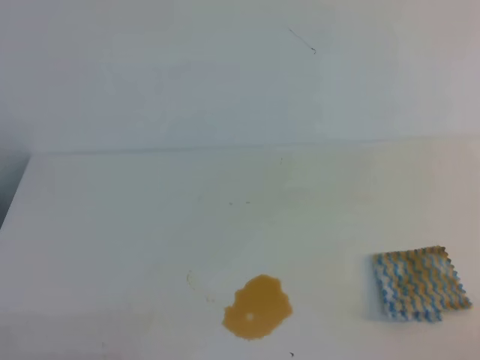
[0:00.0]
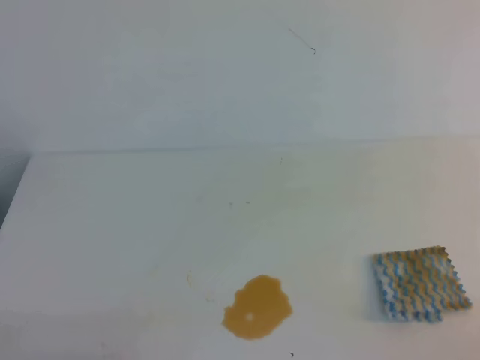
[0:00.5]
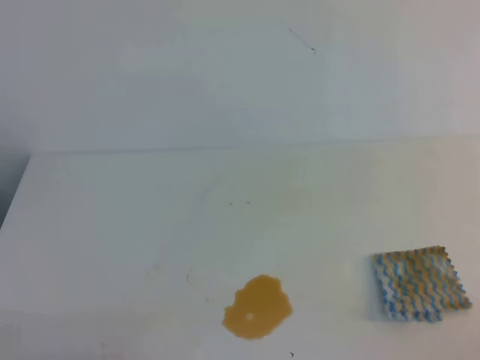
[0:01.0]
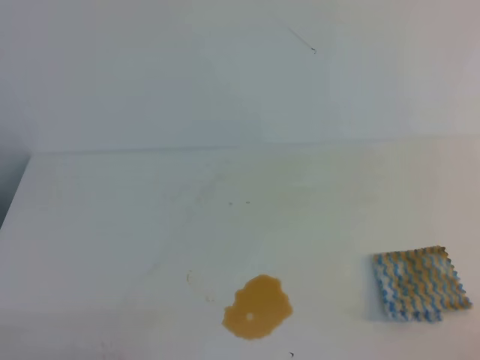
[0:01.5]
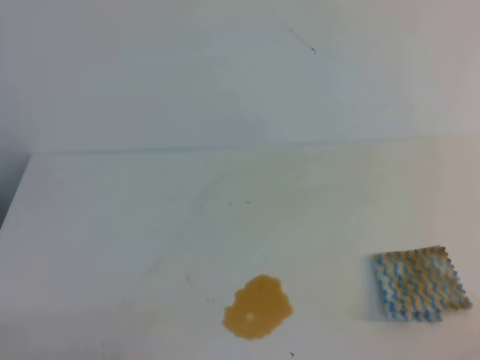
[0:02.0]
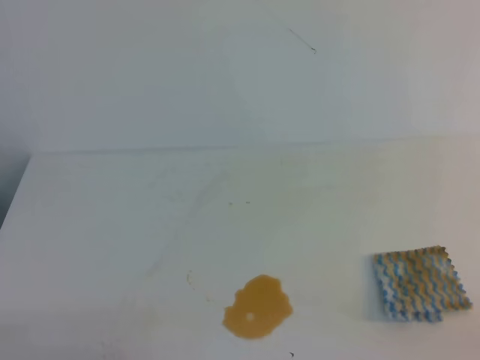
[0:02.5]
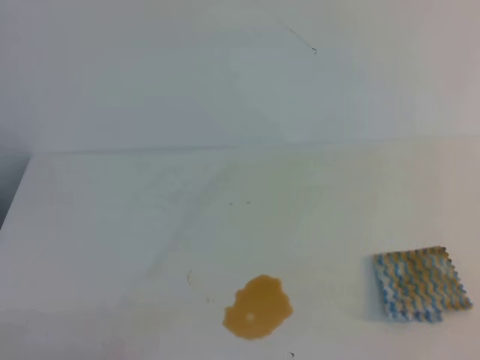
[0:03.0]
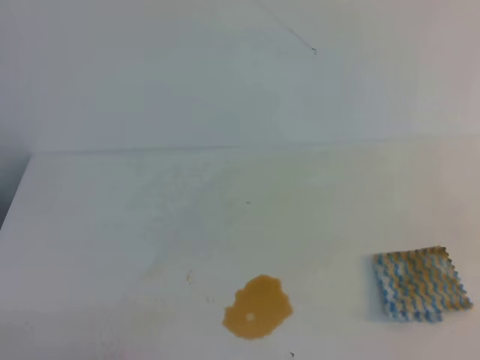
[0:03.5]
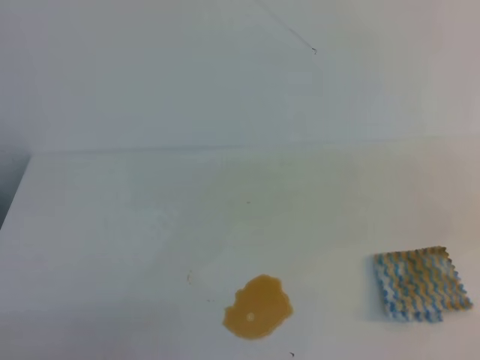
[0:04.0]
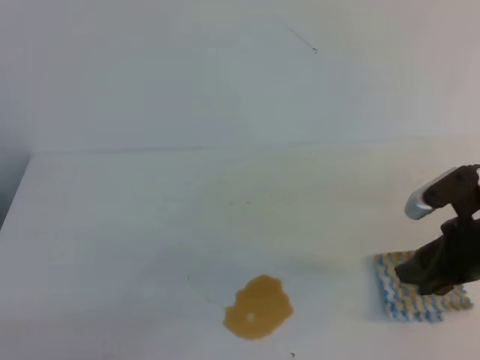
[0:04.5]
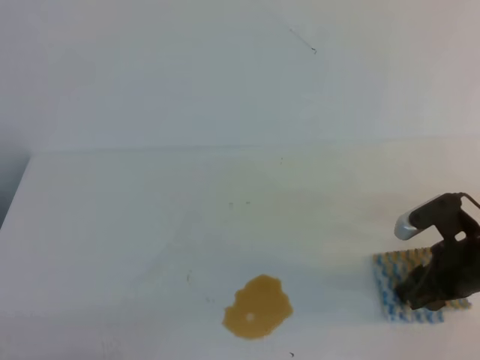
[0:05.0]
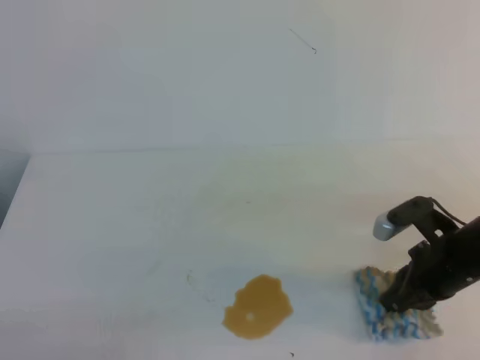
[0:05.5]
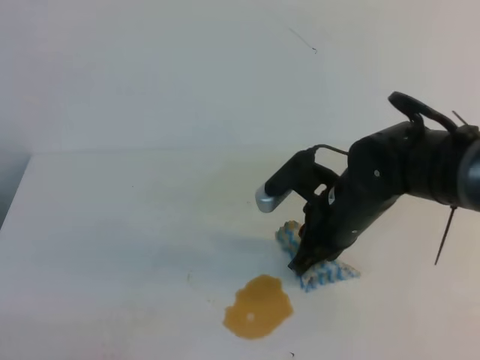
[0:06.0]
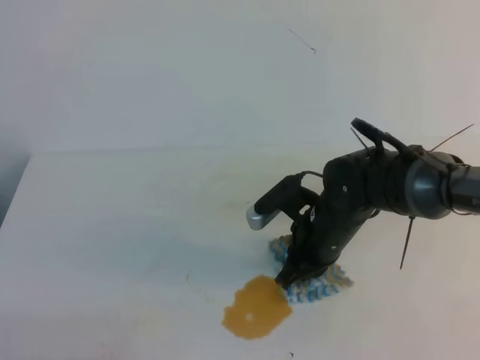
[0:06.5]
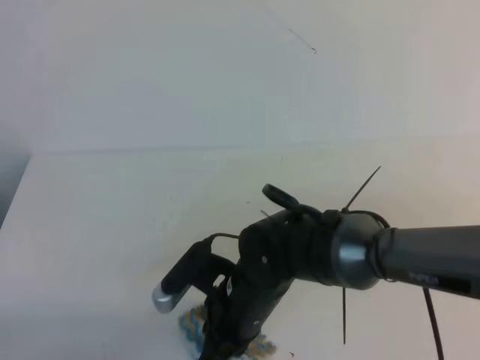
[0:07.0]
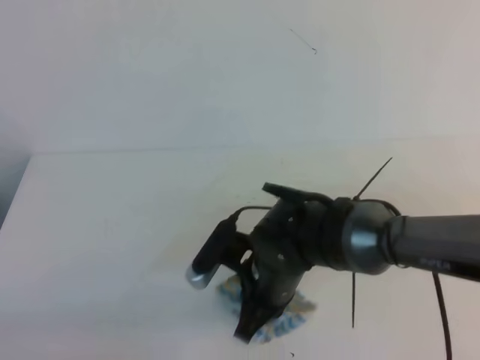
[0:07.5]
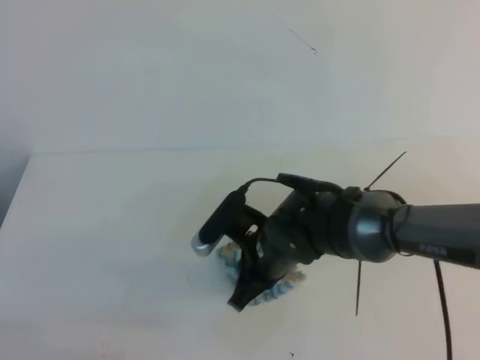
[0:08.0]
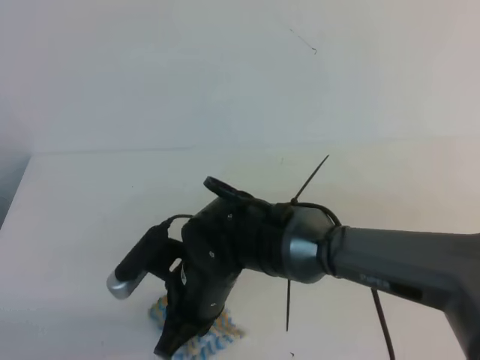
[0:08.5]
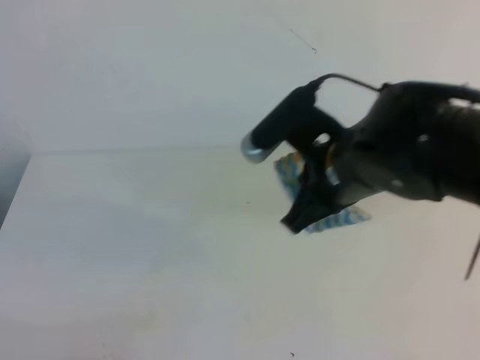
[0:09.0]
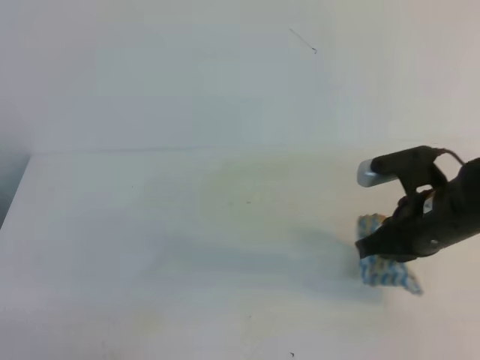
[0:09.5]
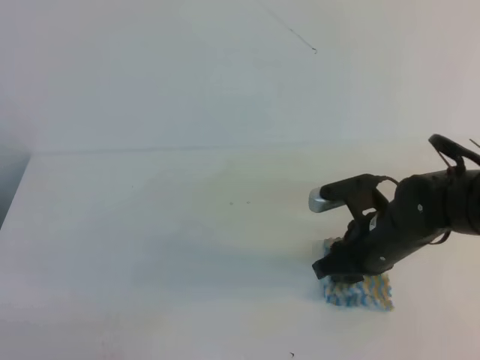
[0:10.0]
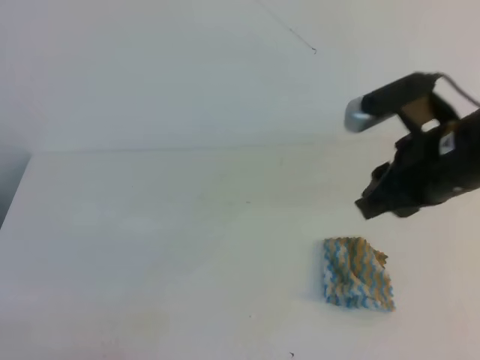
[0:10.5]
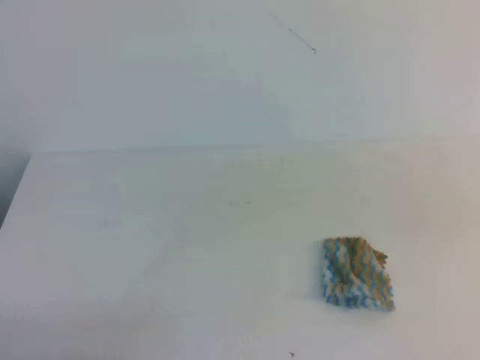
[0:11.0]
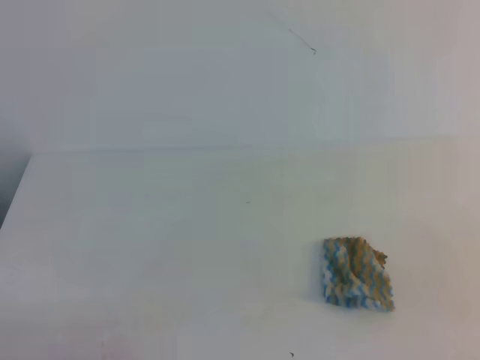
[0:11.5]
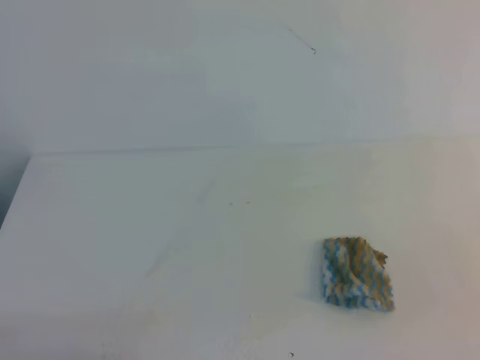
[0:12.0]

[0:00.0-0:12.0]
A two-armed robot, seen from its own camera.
0:00.0 to 0:02.0: The two grippers keep their place.
0:04.0 to 0:06.0: The right gripper shifts about 25 cm to the left, forward and downward, and opens, then closes again.
0:06.0 to 0:08.0: The right gripper travels to the left and downward by some 10 cm.
0:08.0 to 0:10.0: The right gripper goes left and right, some 25 cm each way, reversing 2 times, and opens up.
0:10.0 to 0:12.0: The right gripper moves backward, to the right and upward, approximately 30 cm, and closes its fingers.

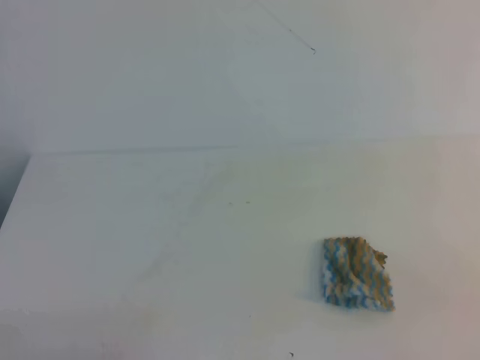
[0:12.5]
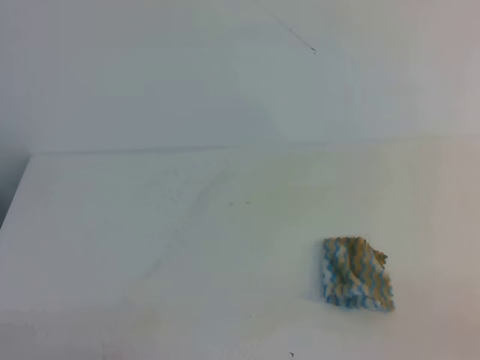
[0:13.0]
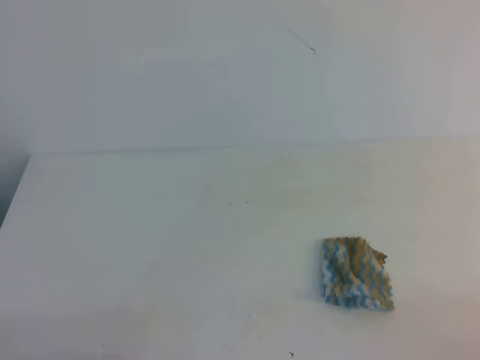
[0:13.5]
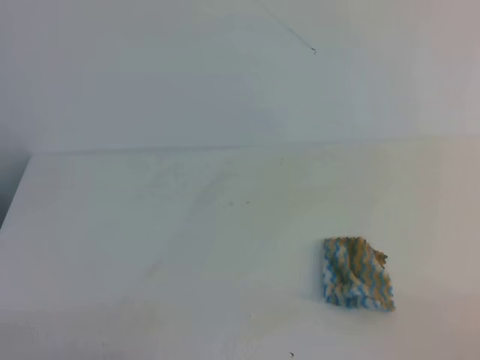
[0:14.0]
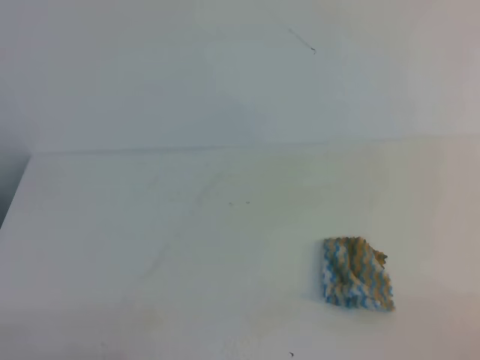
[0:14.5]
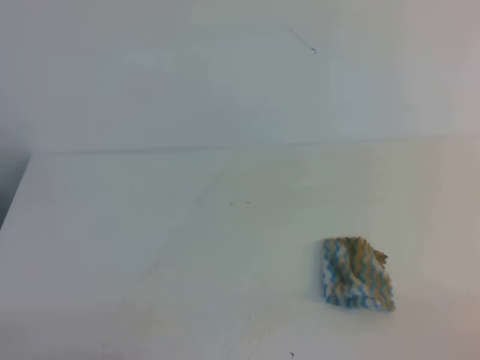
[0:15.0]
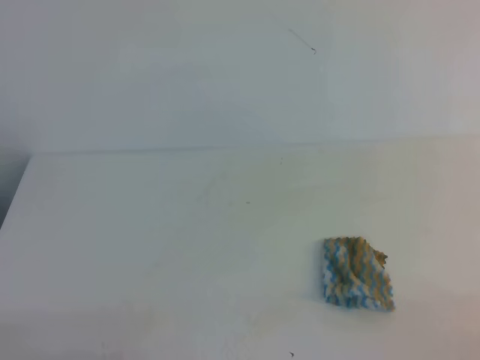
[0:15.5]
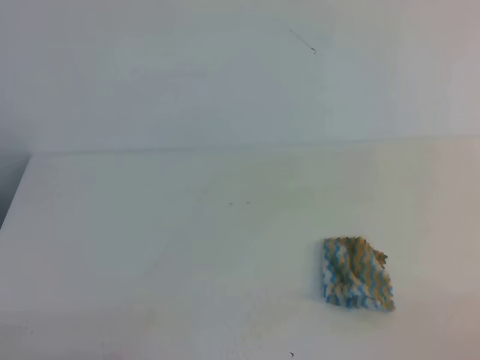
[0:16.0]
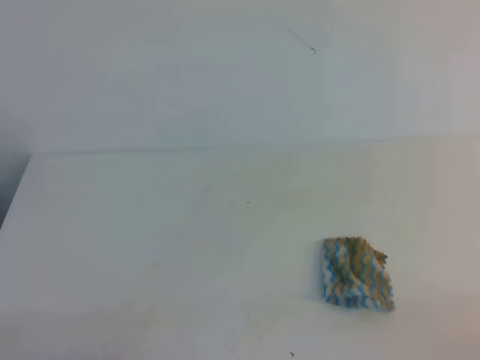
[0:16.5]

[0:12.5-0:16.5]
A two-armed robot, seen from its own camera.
0:14.5 to 0:16.5: Both grippers stay put.

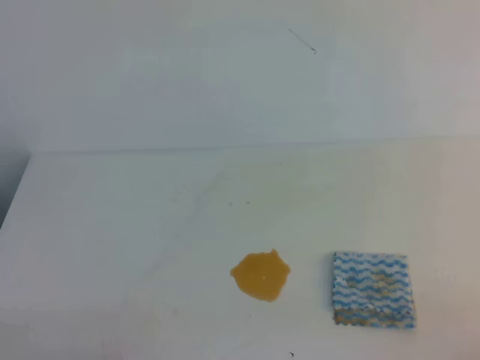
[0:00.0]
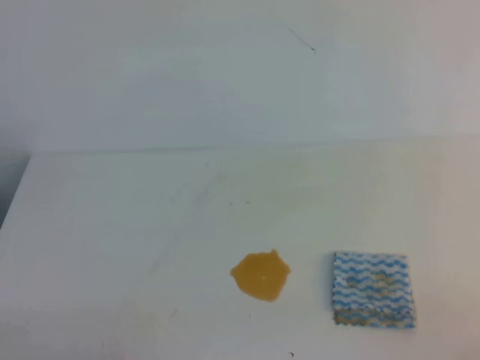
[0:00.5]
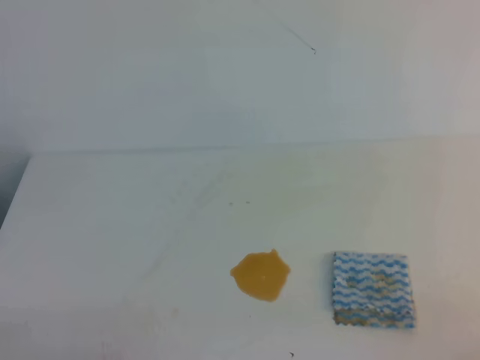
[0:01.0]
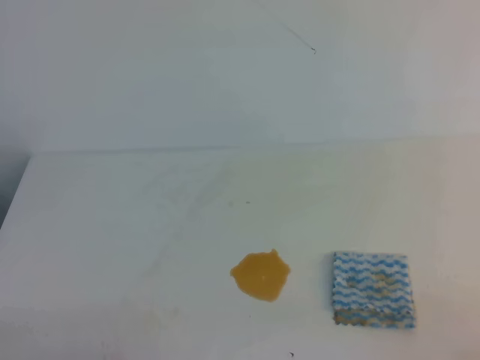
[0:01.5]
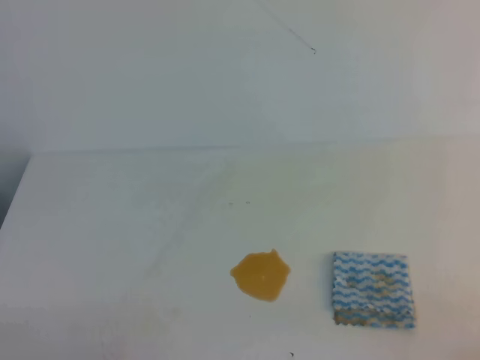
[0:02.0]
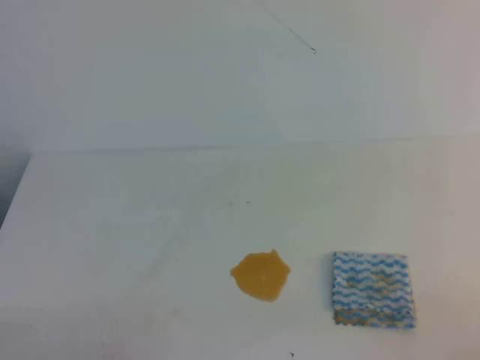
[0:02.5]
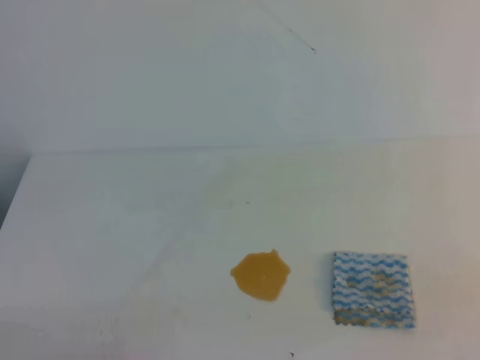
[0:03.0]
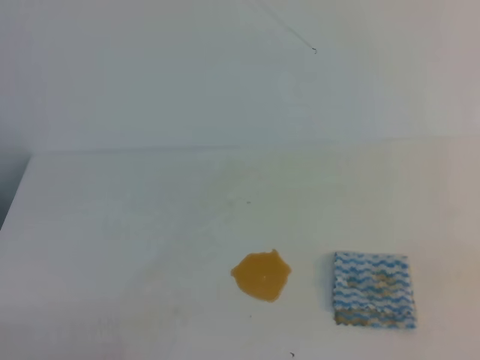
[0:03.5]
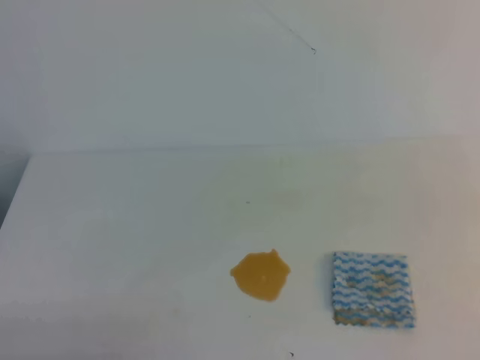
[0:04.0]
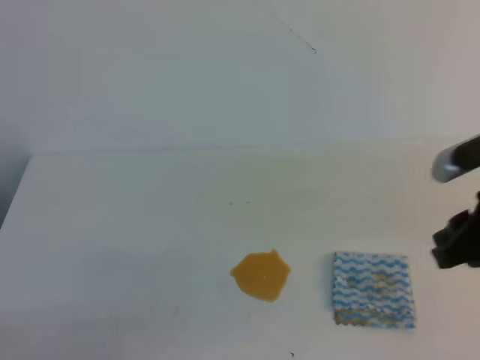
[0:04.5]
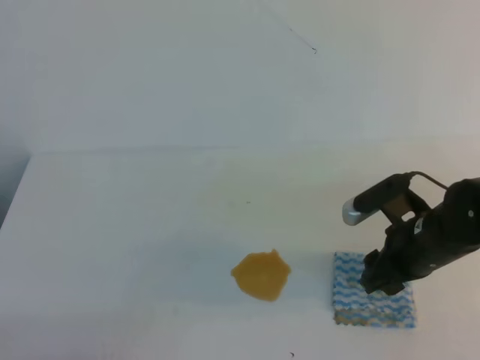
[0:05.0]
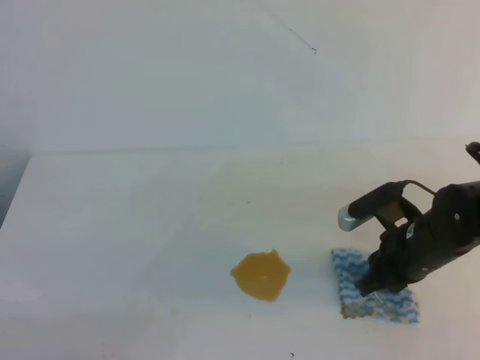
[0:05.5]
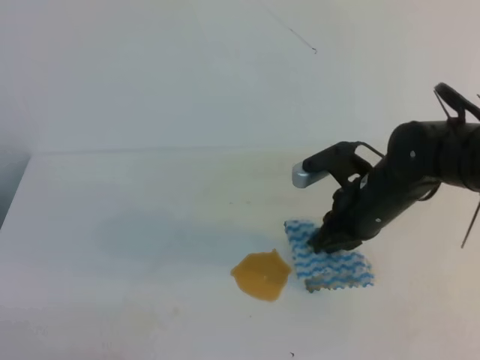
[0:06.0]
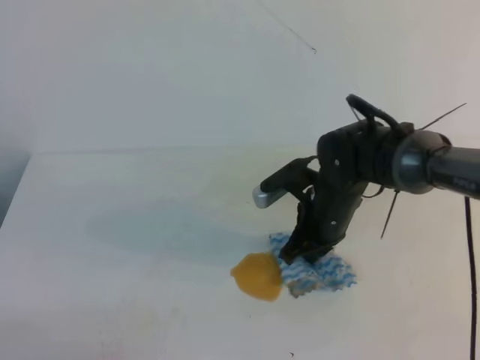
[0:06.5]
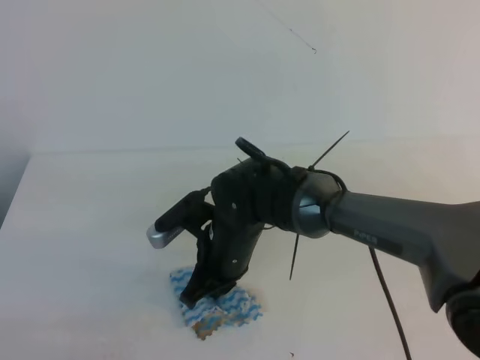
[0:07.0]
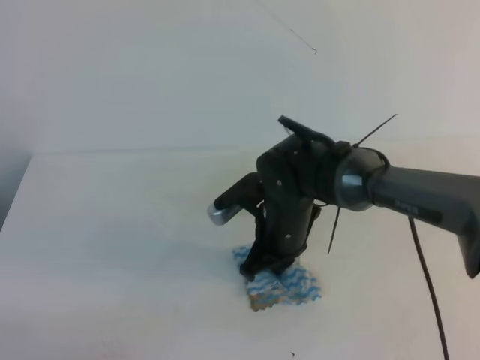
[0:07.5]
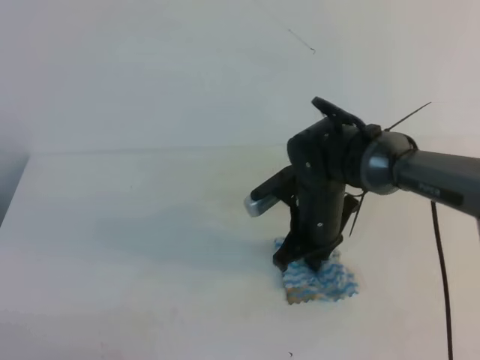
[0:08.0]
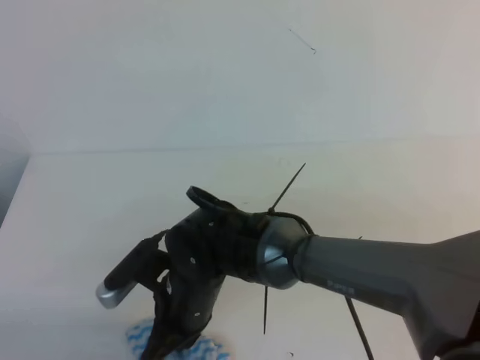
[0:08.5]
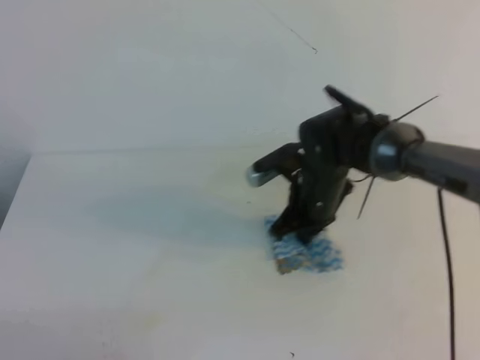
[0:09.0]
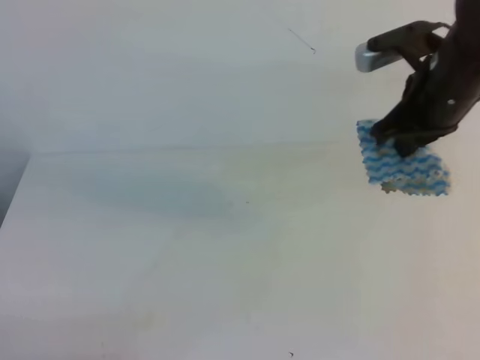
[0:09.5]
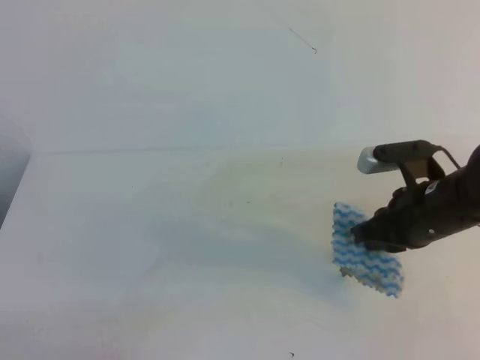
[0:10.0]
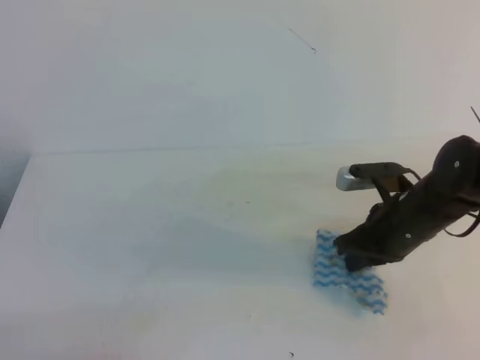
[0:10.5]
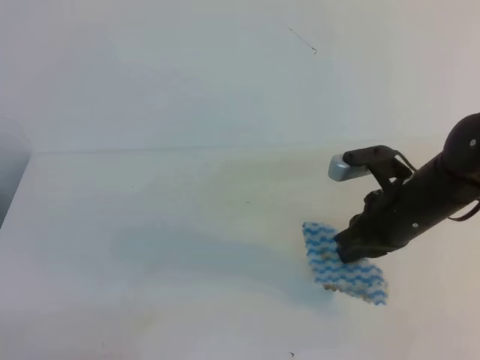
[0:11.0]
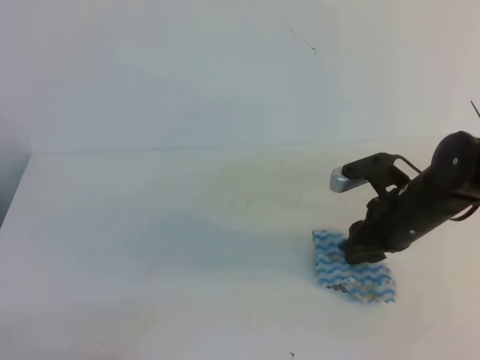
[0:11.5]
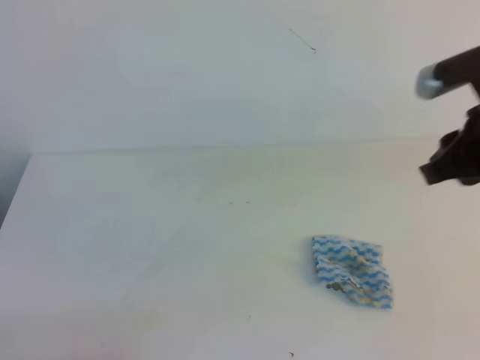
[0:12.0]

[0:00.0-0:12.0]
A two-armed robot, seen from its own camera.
0:00.0 to 0:02.0: Both grippers stay put.
0:04.0 to 0:06.0: The right gripper travels forward, downward and to the left by roughly 35 cm, and opens and closes again.
0:06.0 to 0:08.0: The right gripper heads to the left, covering about 10 cm.
0:08.0 to 0:10.0: The right gripper is displaced to the right and upward by about 15 cm.
0:10.0 to 0:12.0: The right gripper shifts some 10 cm upward, and opens its fingers.
